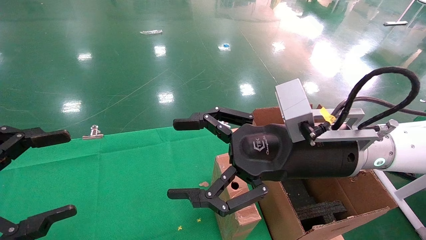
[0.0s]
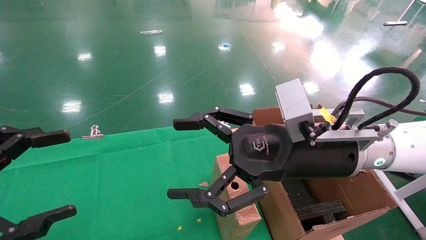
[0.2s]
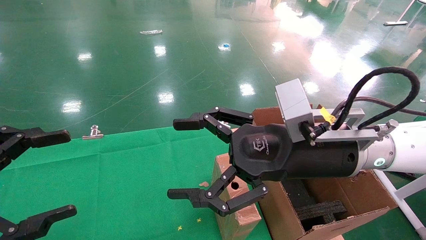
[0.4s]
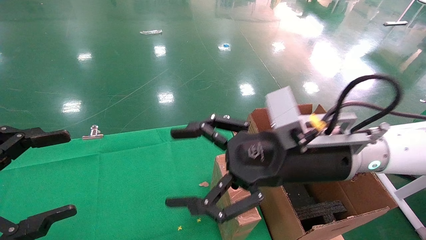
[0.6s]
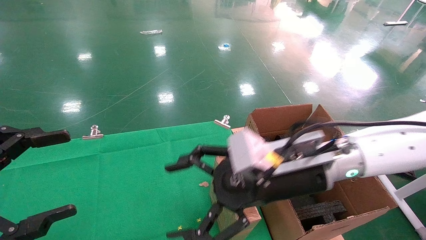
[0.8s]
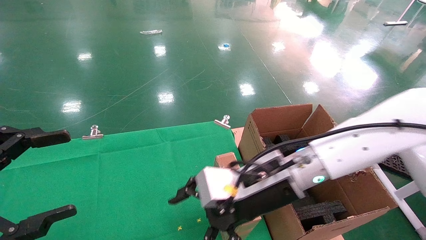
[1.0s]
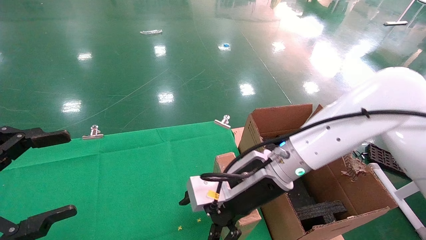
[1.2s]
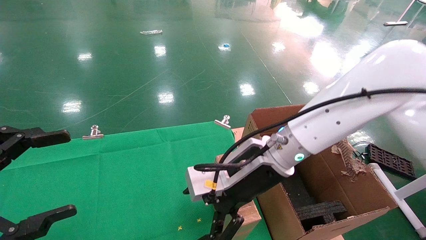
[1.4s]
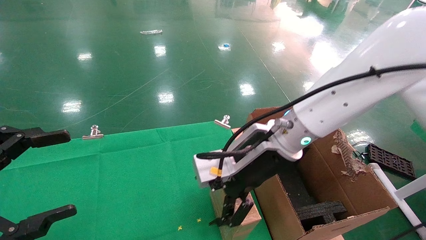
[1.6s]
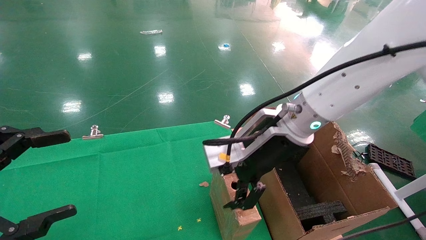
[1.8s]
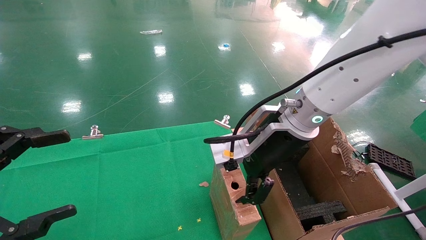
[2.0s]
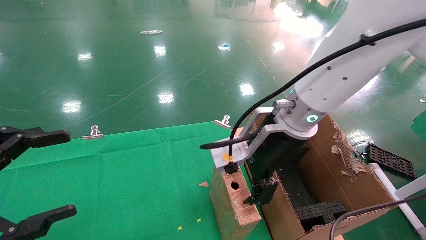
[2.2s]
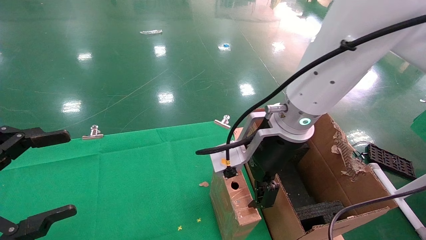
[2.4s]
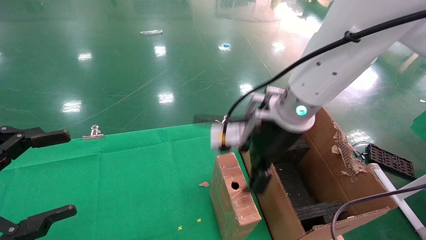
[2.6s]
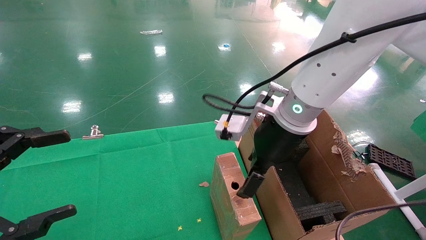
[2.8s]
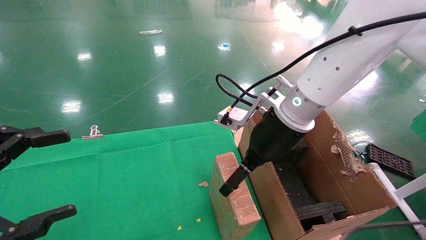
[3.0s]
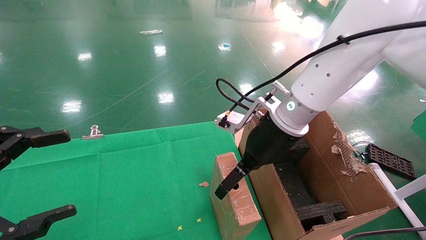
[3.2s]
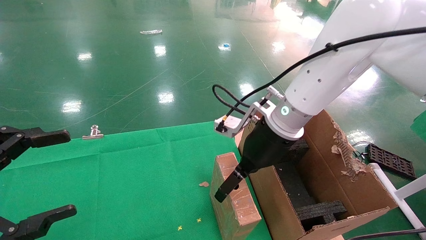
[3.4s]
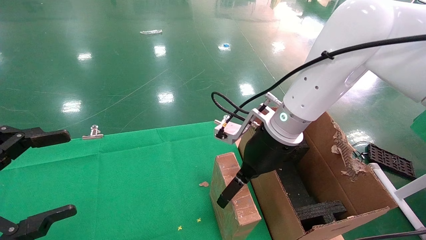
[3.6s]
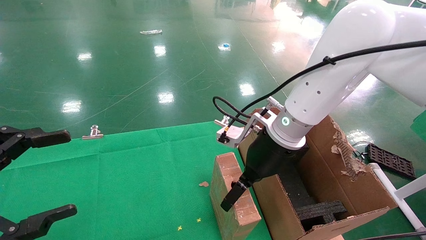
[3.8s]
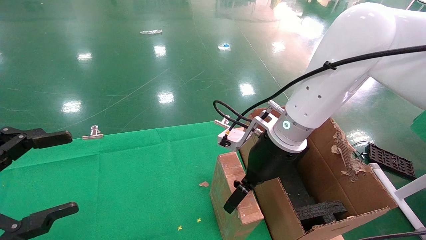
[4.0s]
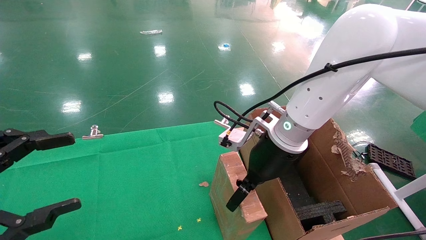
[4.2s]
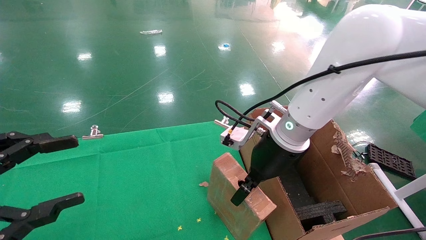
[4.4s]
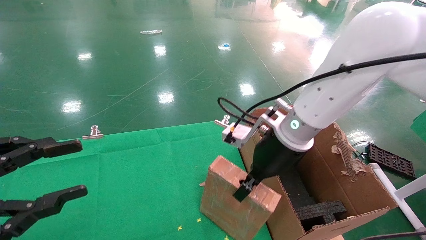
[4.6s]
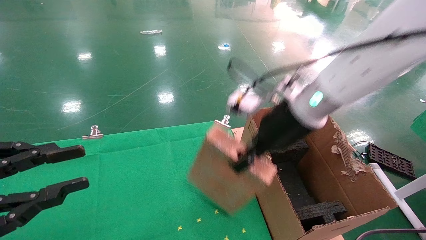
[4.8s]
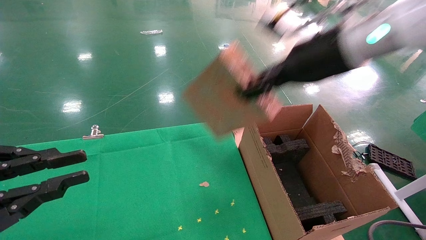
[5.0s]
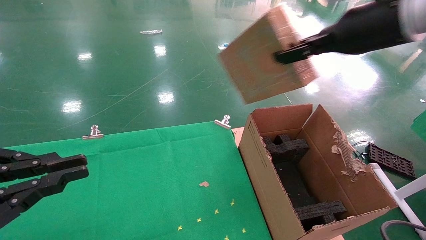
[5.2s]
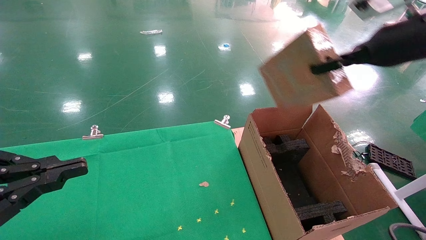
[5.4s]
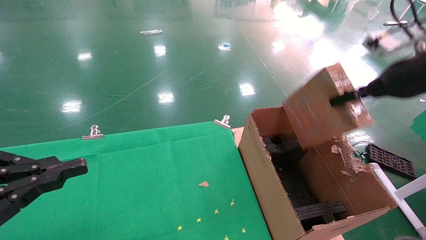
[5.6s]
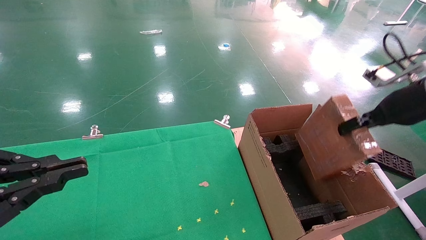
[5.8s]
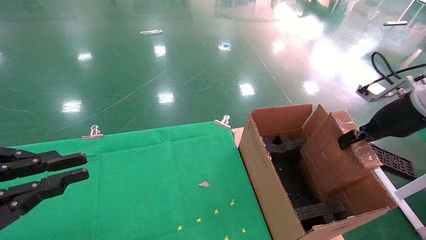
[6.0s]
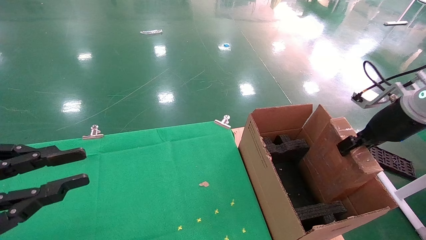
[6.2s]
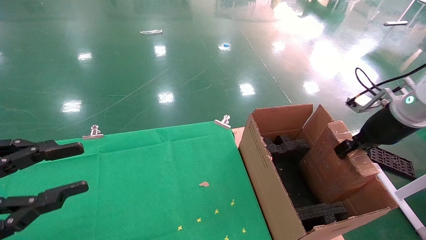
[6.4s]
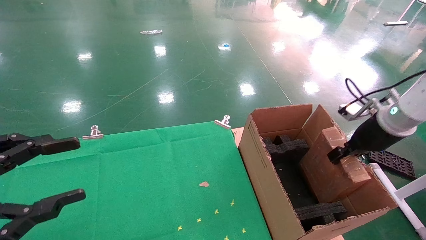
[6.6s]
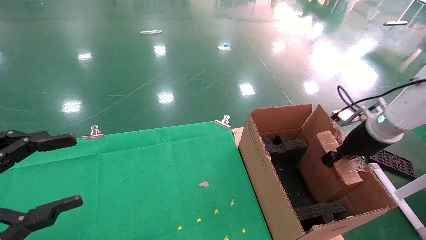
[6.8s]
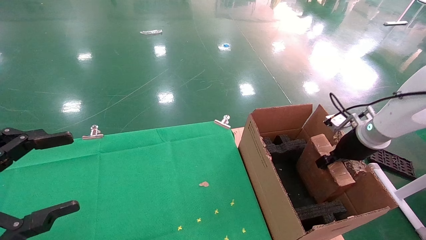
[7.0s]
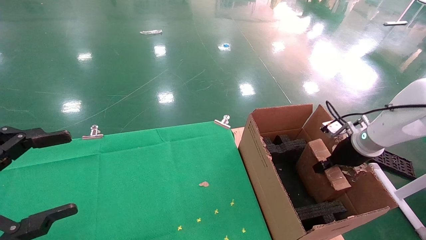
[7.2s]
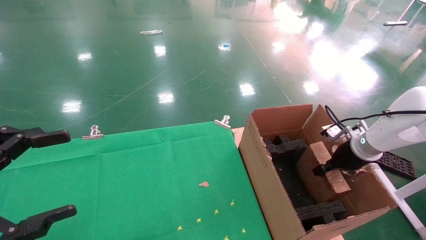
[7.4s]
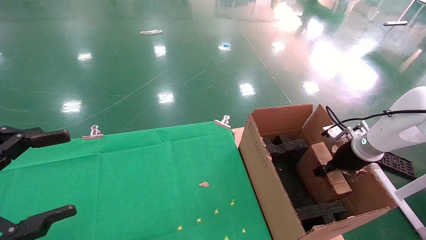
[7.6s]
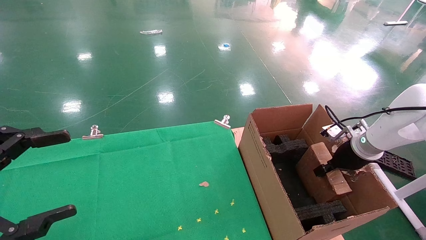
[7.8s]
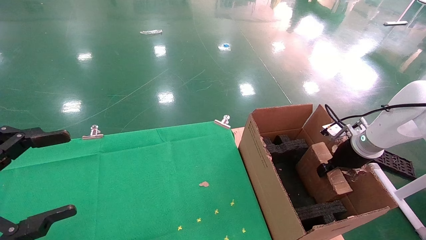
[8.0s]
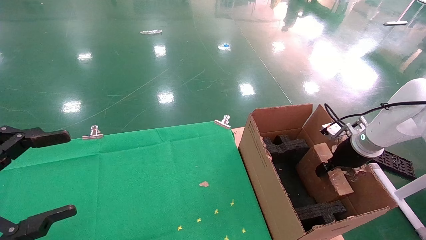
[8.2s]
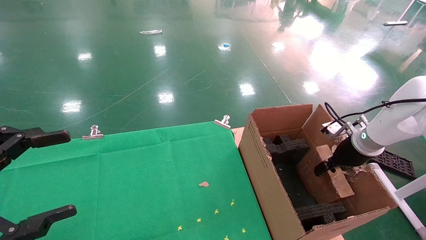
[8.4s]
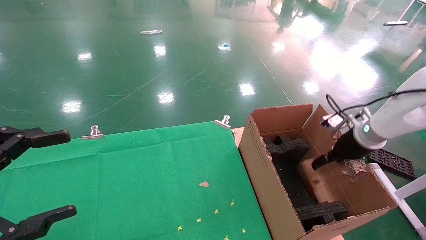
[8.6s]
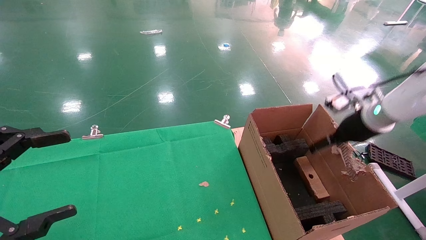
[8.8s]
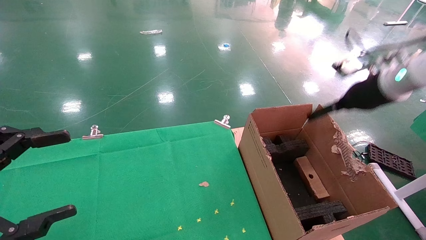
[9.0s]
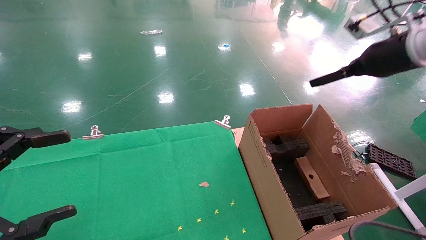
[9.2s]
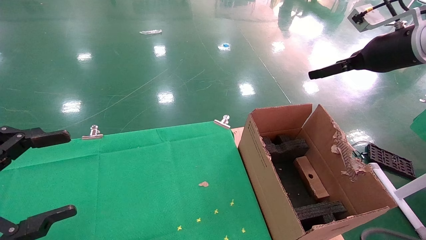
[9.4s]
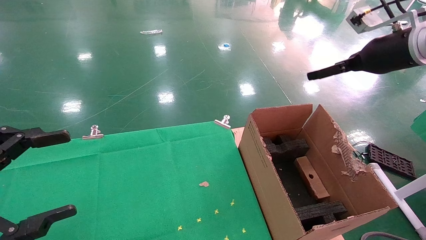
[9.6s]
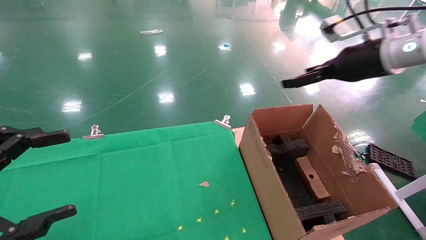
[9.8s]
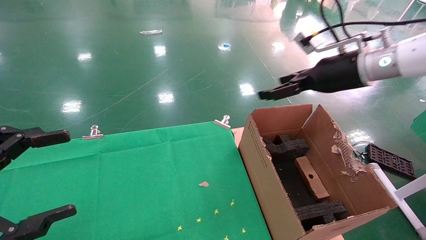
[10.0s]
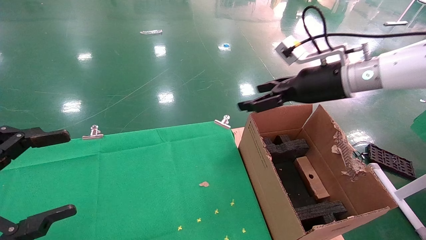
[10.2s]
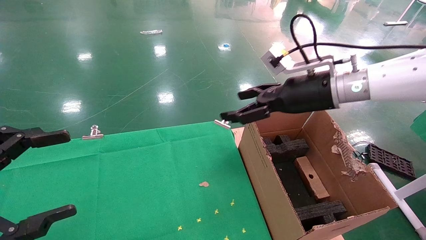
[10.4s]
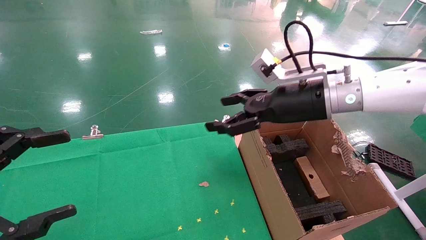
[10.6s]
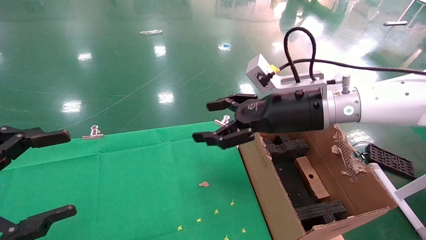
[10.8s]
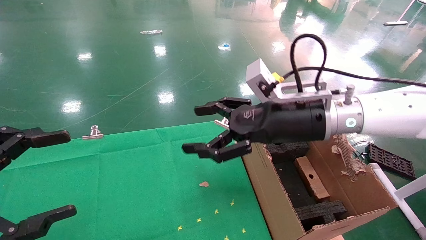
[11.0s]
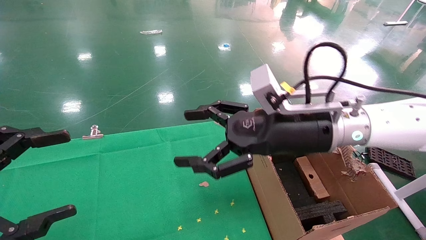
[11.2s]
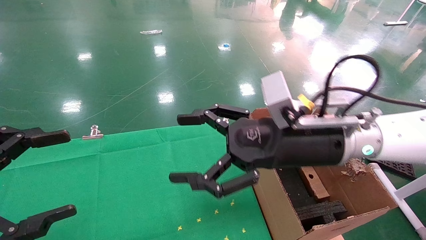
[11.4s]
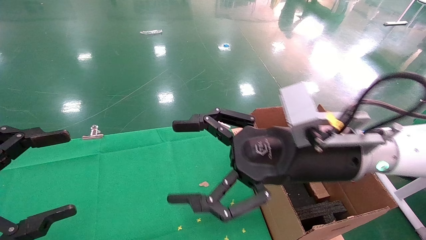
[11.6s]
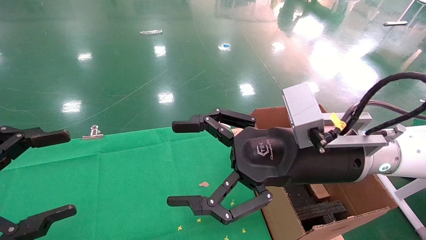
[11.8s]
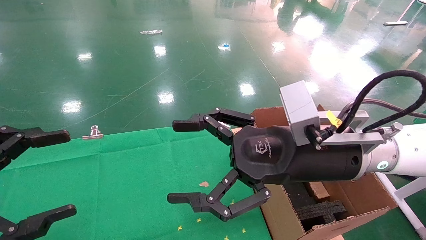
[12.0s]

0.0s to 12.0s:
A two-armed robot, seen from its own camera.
Task of the whole recording: using a robotic arm to pick up a cardboard box and palace it the carton.
Step, 0.8s to 4.4s: Pick up the mouse and the power cord paper box.
Step, 4.6s to 9.2s: Place the mouse and the power cord paper box into the container.
0.0s to 1.6s: The right gripper travels forward and to the left by about 10 cm.
3.0s to 4.4s: The right gripper closes its fingers.
4.4s to 6.0s: The right gripper heads to the right, covering about 25 cm, and closes. Meanwhile the left gripper closes up.
6.0s to 7.6s: The right gripper travels downward and forward by some 15 cm; the left gripper opens up.
7.6s to 9.0s: The right gripper moves upward, approximately 15 cm, and opens.
9.0s to 10.4s: The right gripper heads to the left, covering about 15 cm.
10.4s to 12.0s: The right gripper shifts about 15 cm backward, to the left and downward.

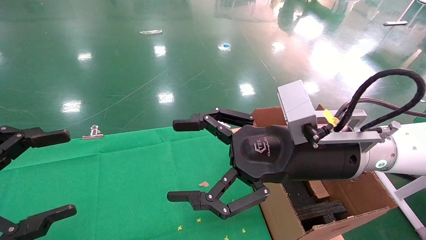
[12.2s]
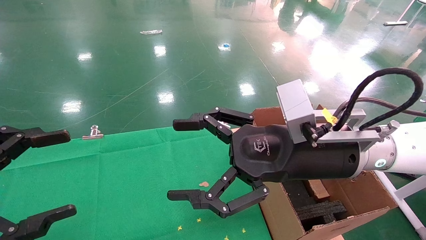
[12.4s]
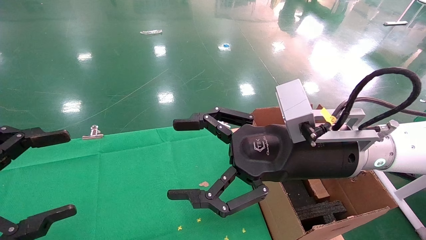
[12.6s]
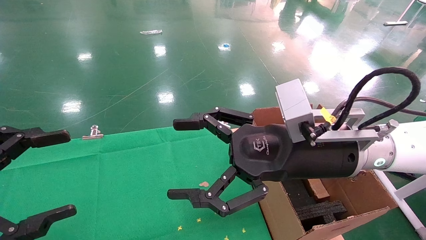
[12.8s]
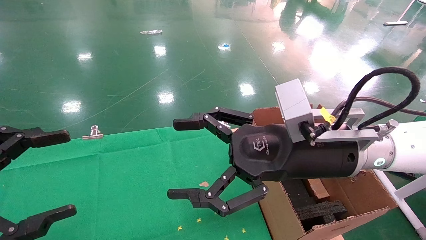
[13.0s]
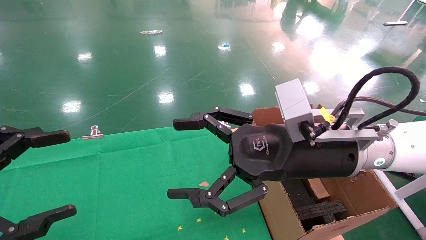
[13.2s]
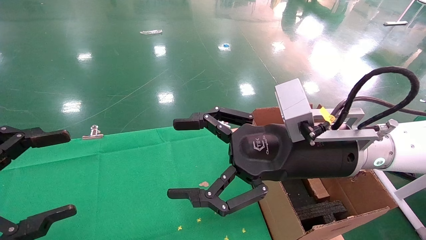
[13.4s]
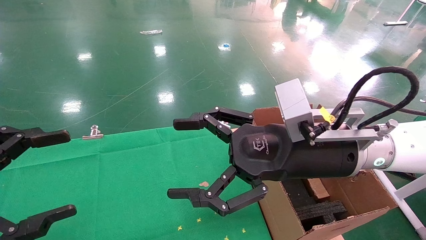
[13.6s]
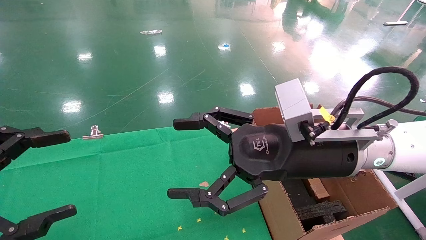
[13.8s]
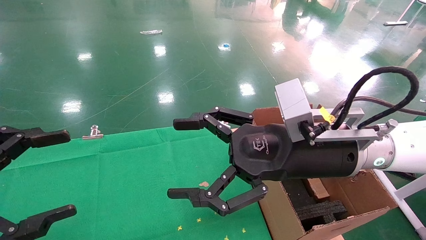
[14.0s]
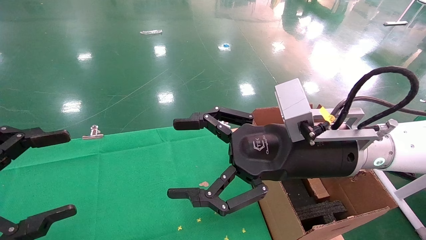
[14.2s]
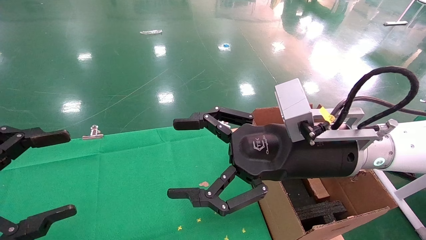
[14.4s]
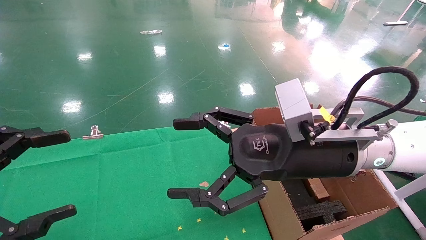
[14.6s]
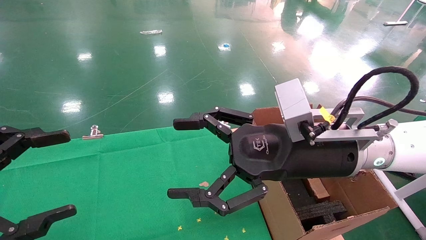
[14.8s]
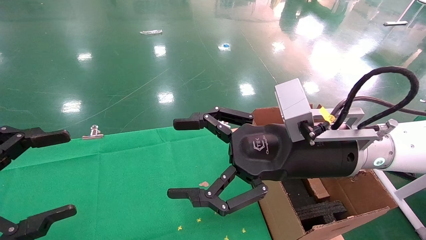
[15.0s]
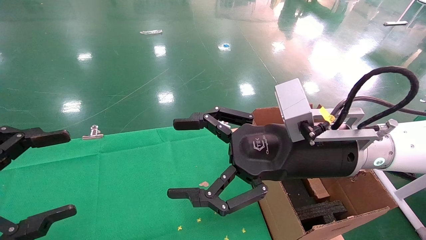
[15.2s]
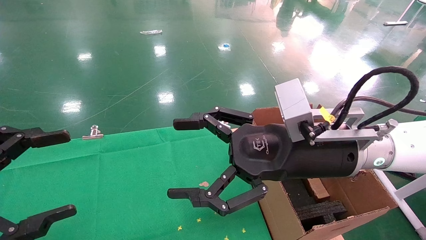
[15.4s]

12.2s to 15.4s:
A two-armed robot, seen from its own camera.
Task of the whole recording: using a robotic arm to pick up a cardboard box and palace it the carton.
12.2s to 15.4s: Neither gripper changes place.

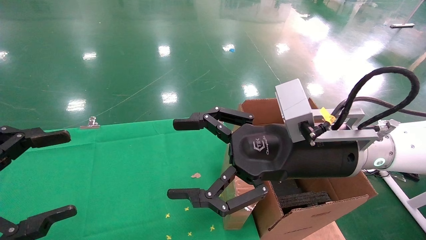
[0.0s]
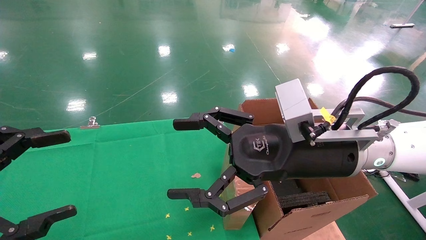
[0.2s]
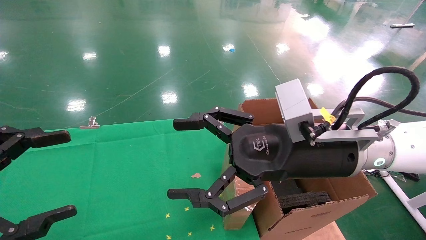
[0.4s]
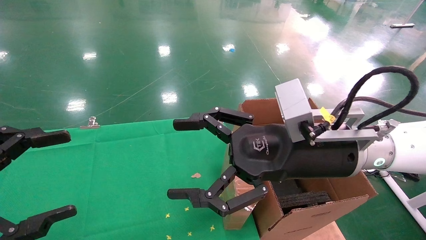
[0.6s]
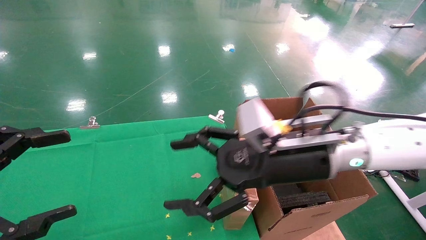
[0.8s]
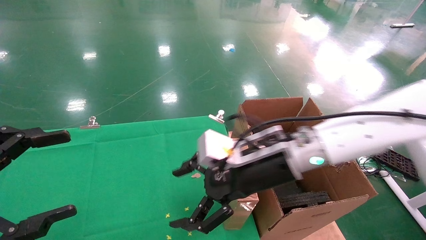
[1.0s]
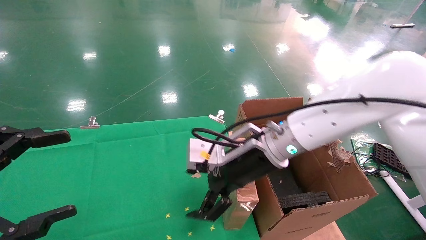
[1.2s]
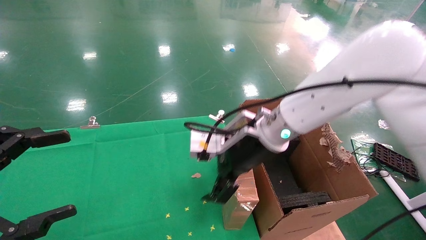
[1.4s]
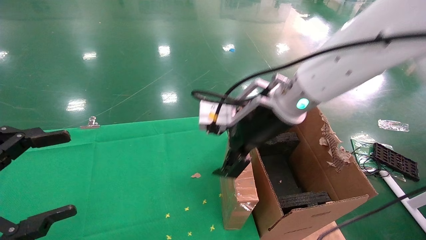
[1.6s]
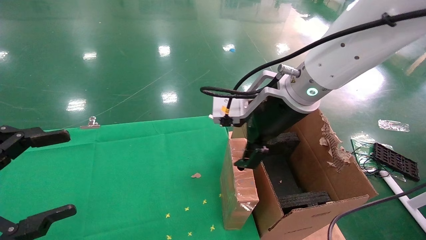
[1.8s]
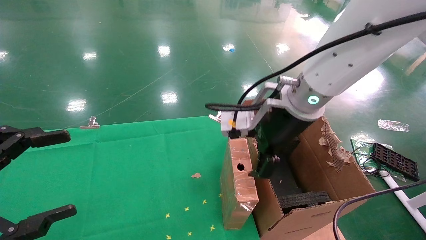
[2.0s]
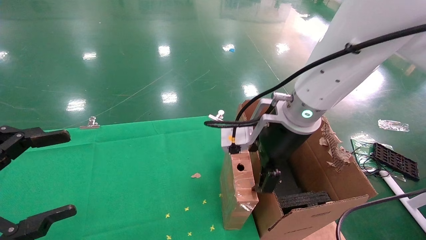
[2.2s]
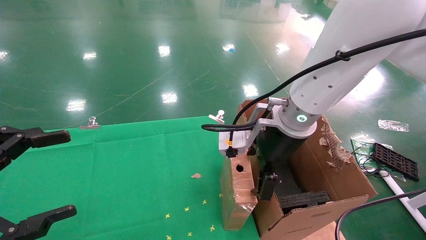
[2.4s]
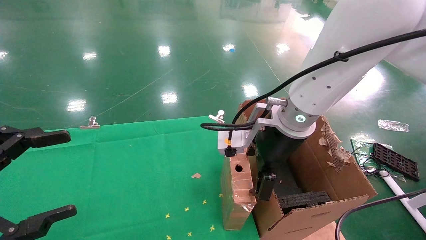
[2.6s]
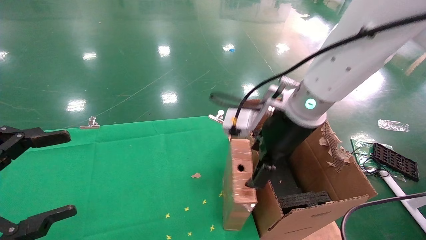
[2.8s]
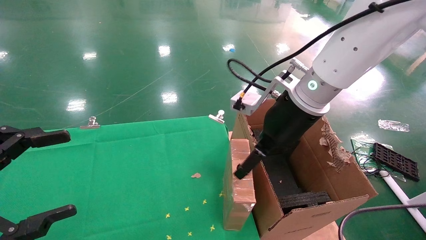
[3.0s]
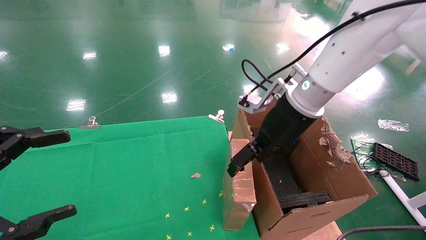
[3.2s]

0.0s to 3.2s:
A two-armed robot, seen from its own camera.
Task of the whole recording: using a robotic arm to pick up a cardboard box and palace it the carton.
0.0s to 1.6s: The right gripper shifts some 10 cm forward.
1.6s to 3.2s: The right gripper moves to the right, some 5 cm.
